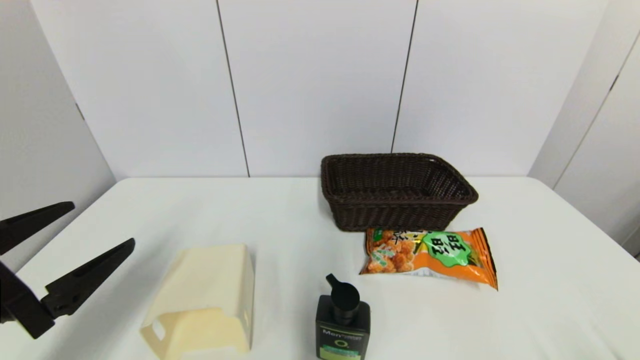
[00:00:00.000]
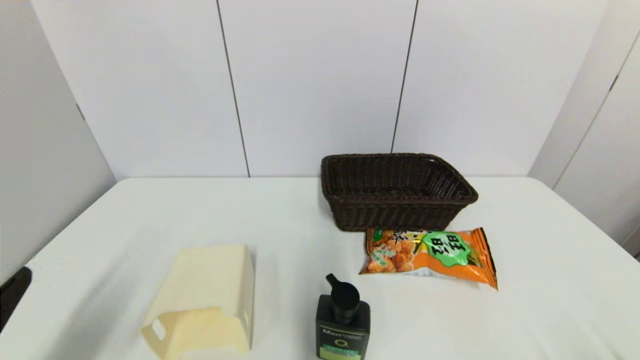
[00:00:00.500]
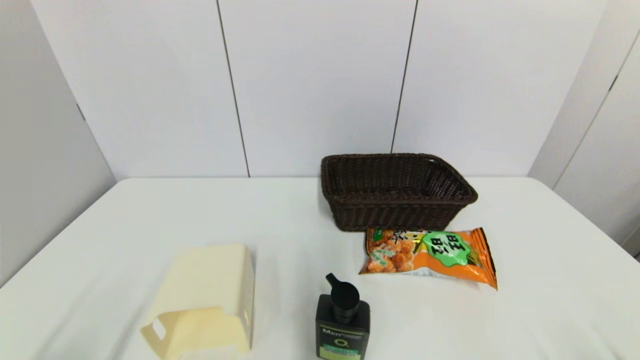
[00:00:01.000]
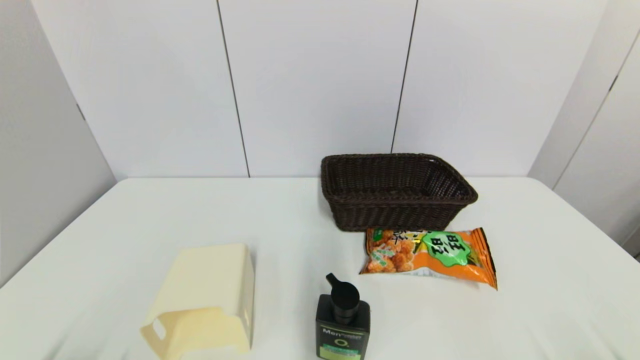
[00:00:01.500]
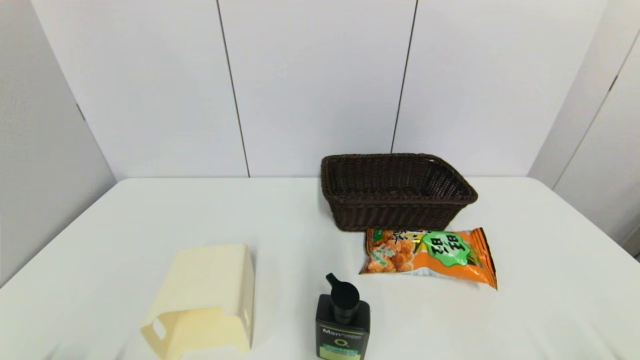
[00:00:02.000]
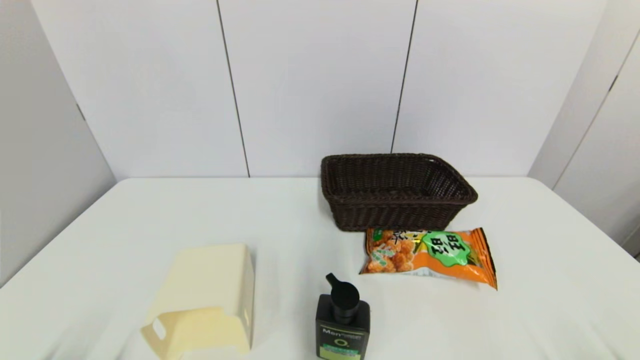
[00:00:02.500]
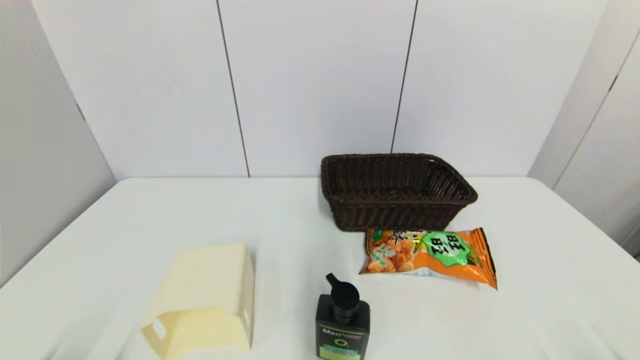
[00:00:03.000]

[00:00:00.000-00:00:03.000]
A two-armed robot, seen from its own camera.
00:00:00.000 to 00:00:01.500: The left gripper goes approximately 15 cm downward and backward.
